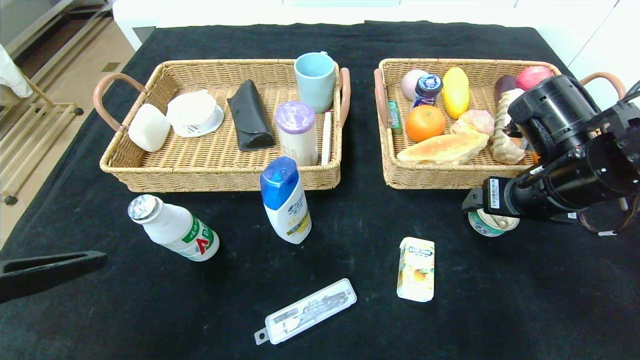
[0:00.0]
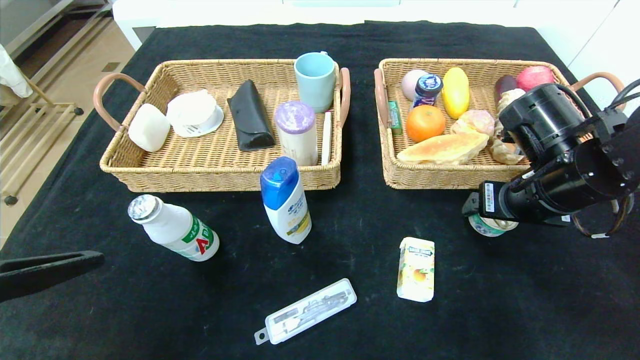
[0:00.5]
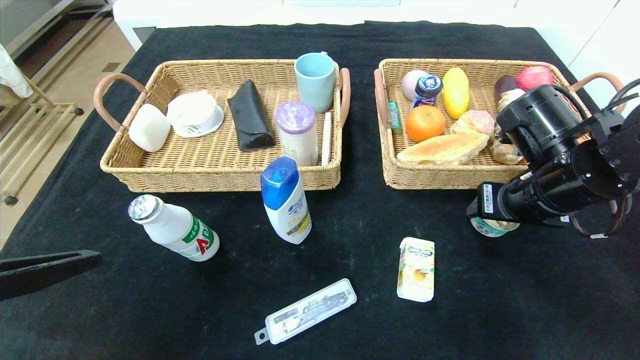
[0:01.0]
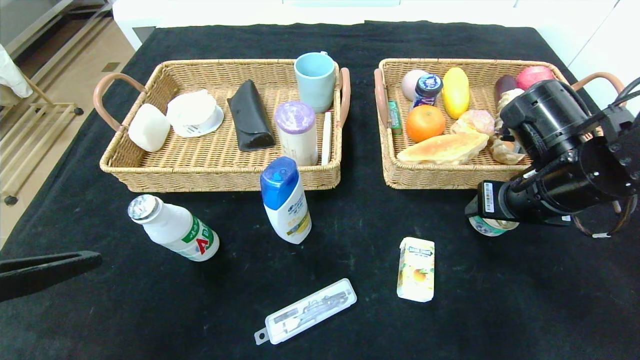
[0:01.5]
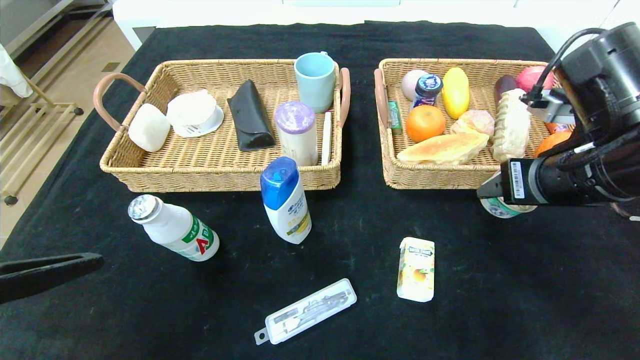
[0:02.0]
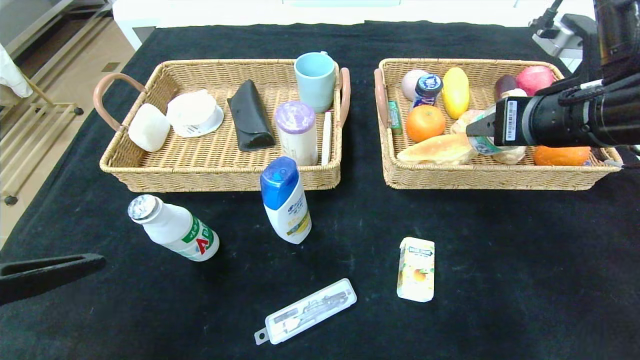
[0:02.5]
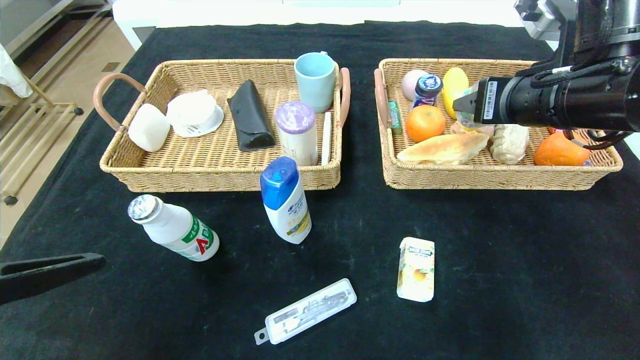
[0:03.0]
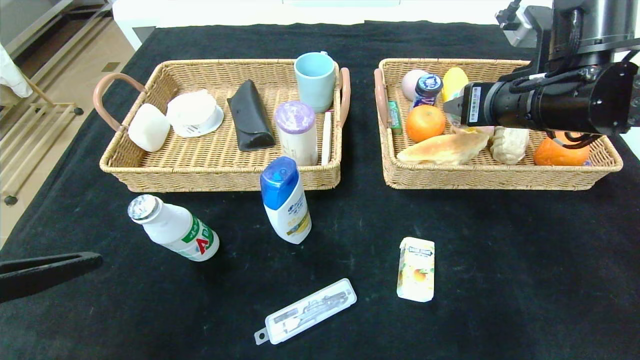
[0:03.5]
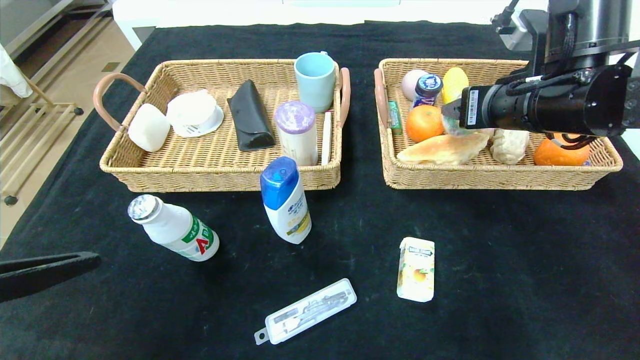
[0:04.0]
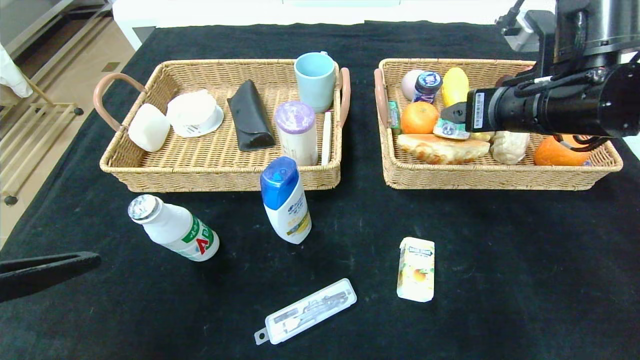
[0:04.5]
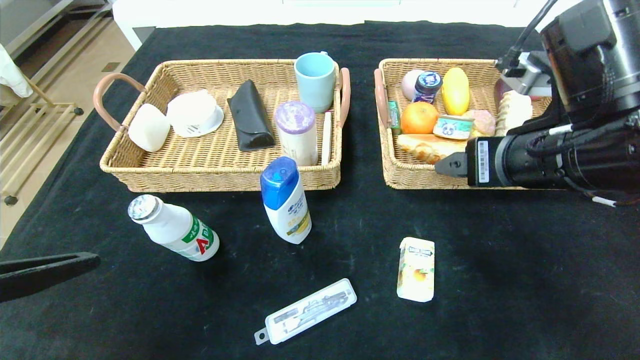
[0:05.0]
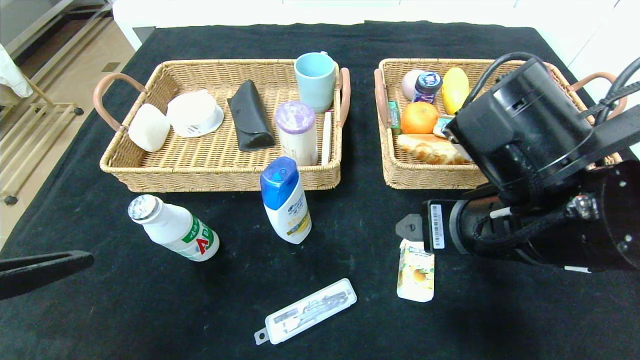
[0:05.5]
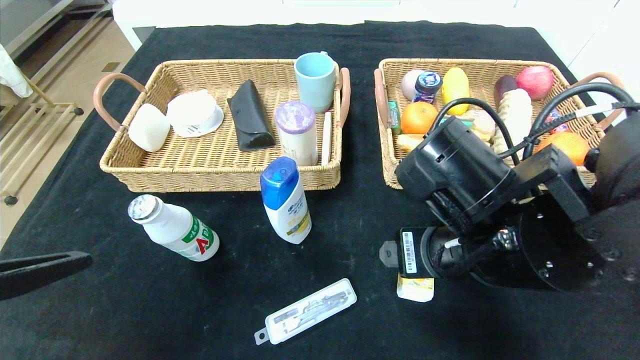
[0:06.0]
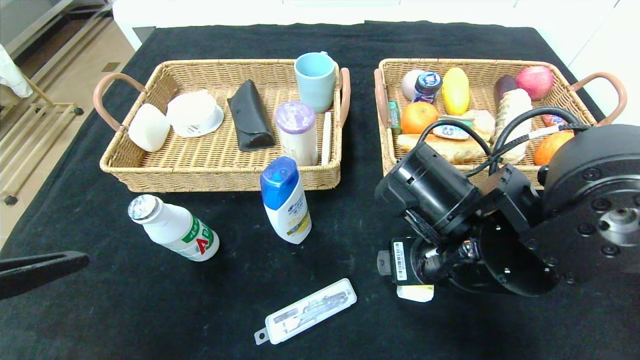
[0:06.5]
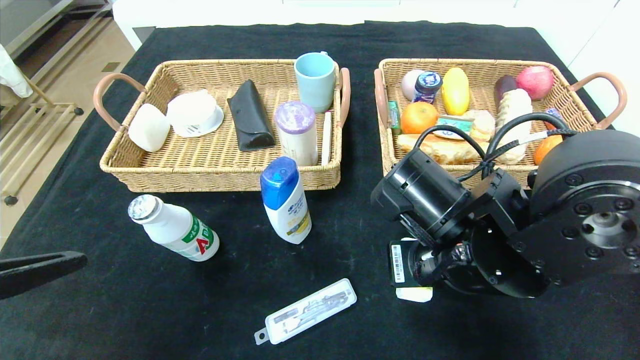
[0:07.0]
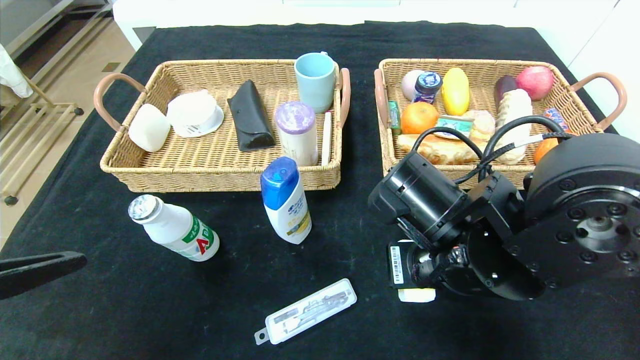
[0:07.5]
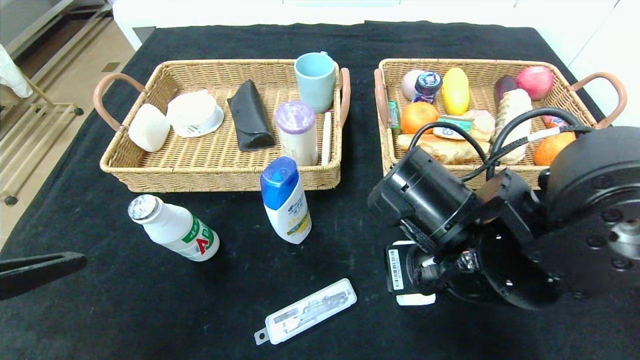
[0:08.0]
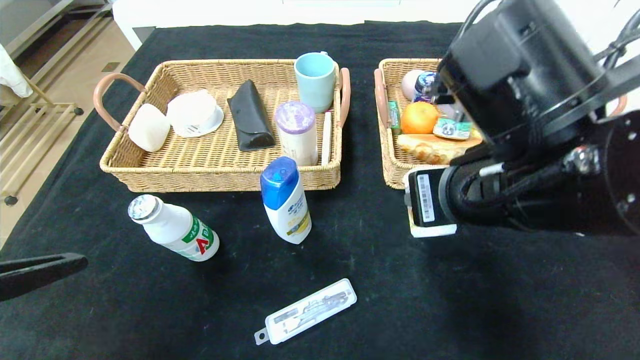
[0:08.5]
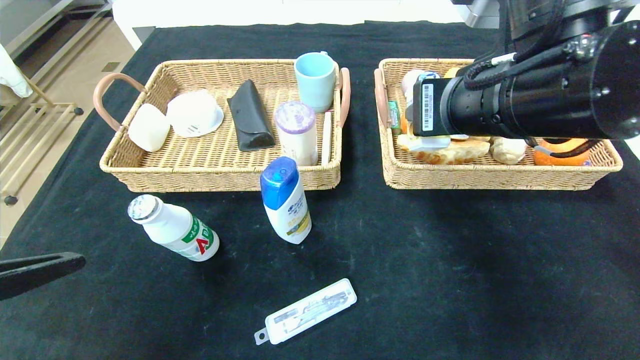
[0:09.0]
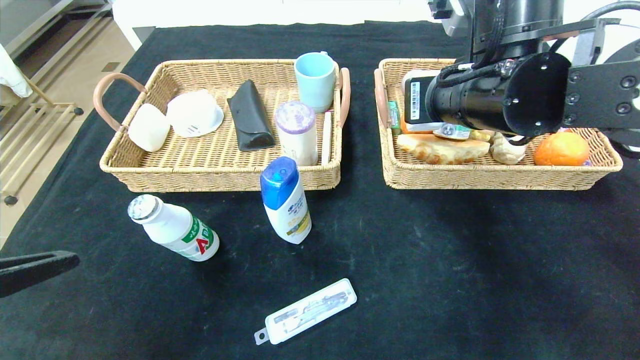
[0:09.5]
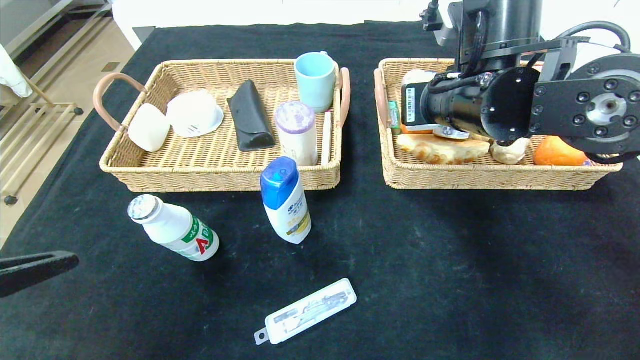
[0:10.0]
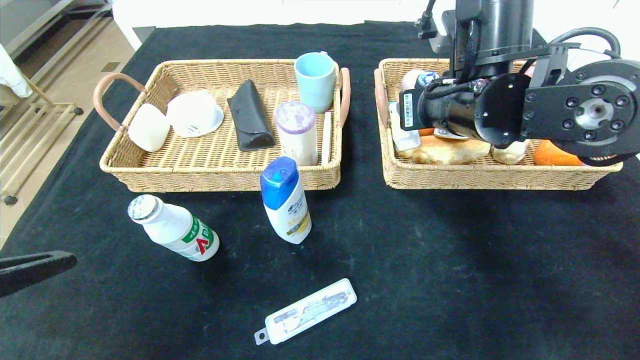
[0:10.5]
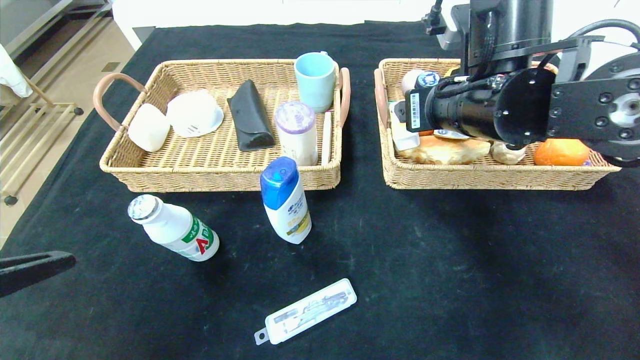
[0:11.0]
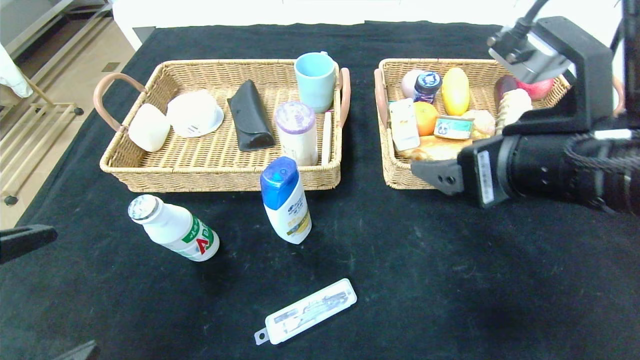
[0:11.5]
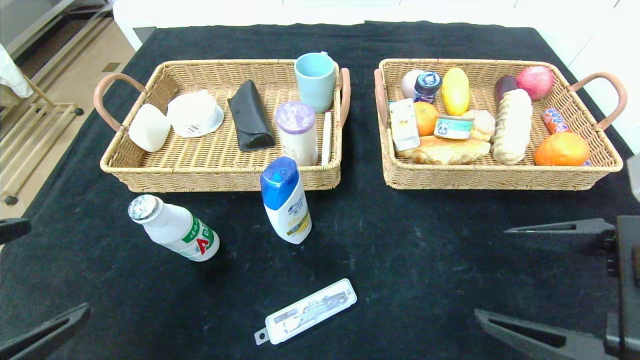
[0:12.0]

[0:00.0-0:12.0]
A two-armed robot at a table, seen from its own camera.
Step, 0:00.0 to 0:04.0: Grasp the can and put it in the right basket.
Step, 0:04.5 to 0:10.5: Grasp the square chewing gum and put it in the right basket.
0:00.0 to 0:02.0: The right gripper changes place by about 5 cm, and closes up.
0:02.0 to 0:04.0: The right gripper moves forward, roughly 5 cm.
0:04.0 to 0:06.0: The right gripper heads backward, to the left and downward, covering some 15 cm, and opens its fingers.
0:06.0 to 0:08.0: The right gripper closes up.
0:08.0 to 0:10.0: The right gripper goes approximately 15 cm forward and upward.
0:10.0 to 0:12.0: The right gripper heads backward and to the right, covering roughly 25 cm, and opens up.

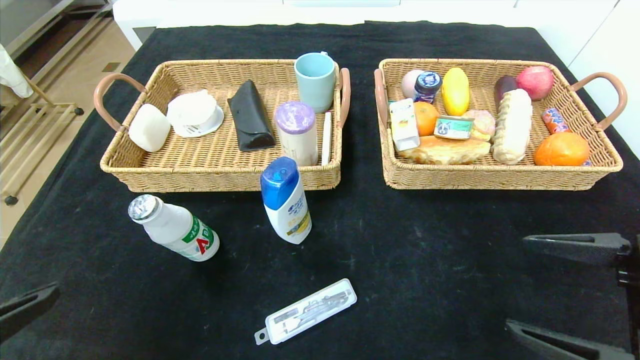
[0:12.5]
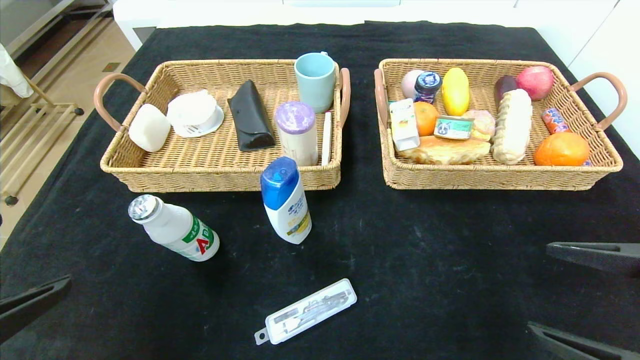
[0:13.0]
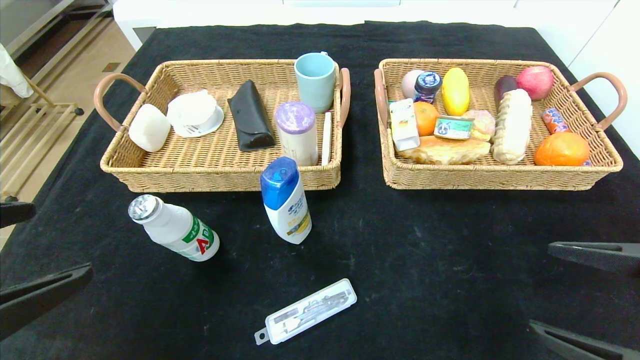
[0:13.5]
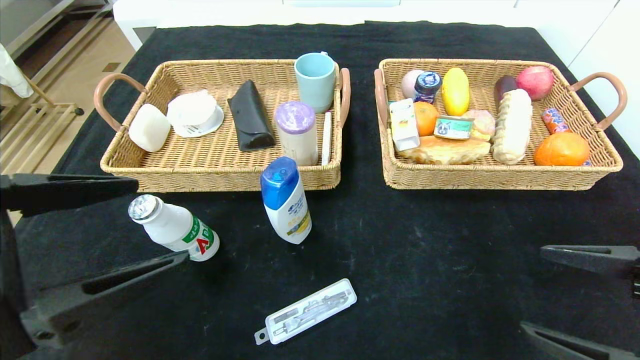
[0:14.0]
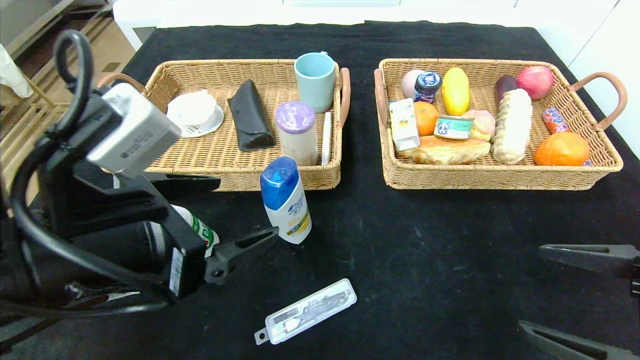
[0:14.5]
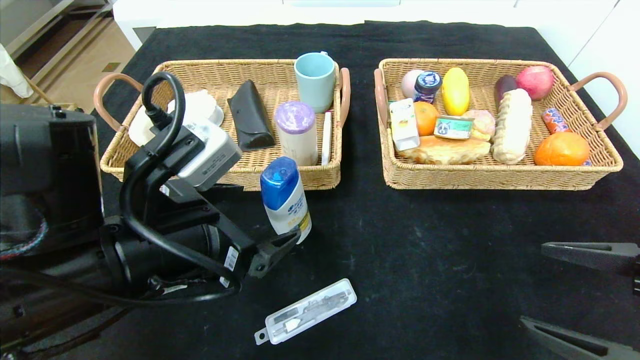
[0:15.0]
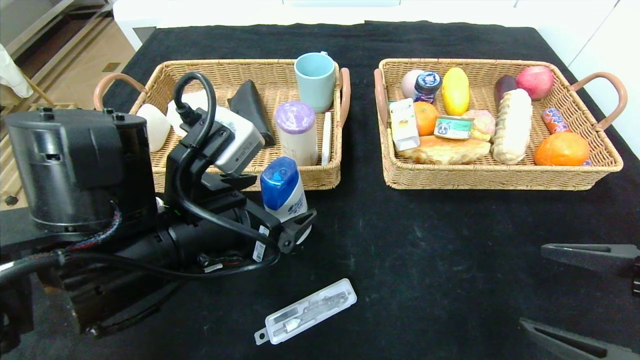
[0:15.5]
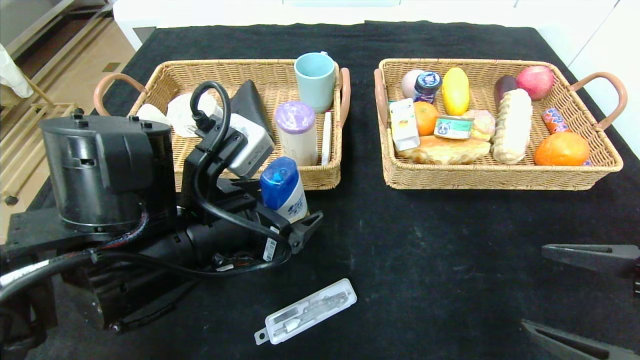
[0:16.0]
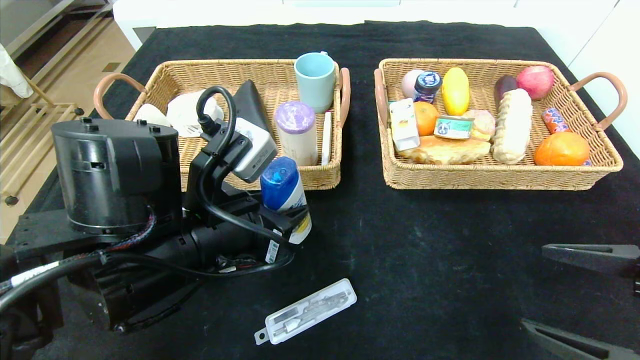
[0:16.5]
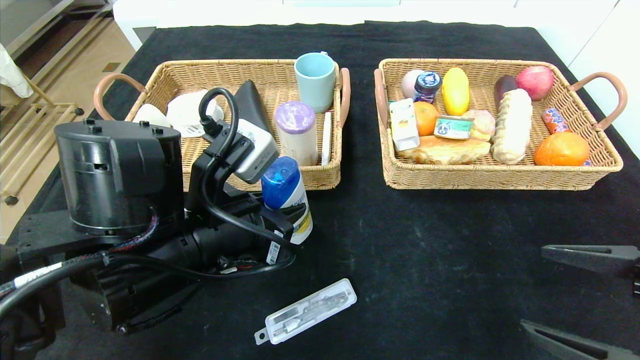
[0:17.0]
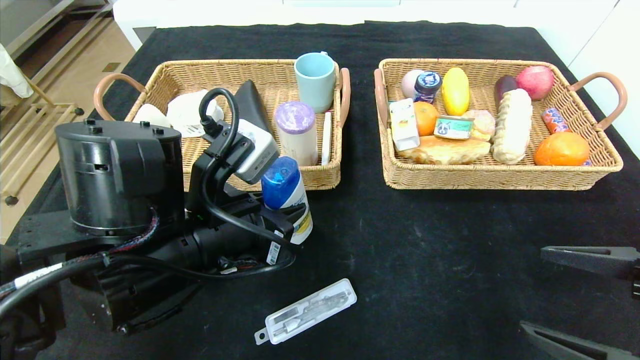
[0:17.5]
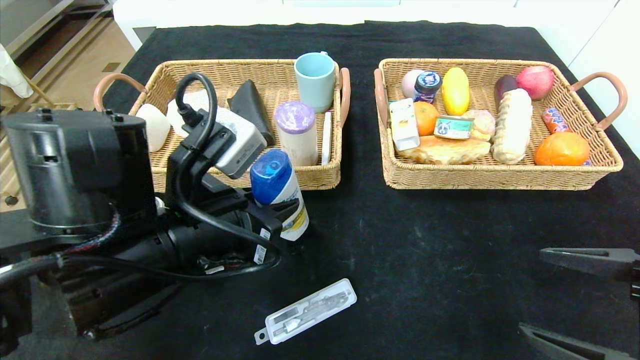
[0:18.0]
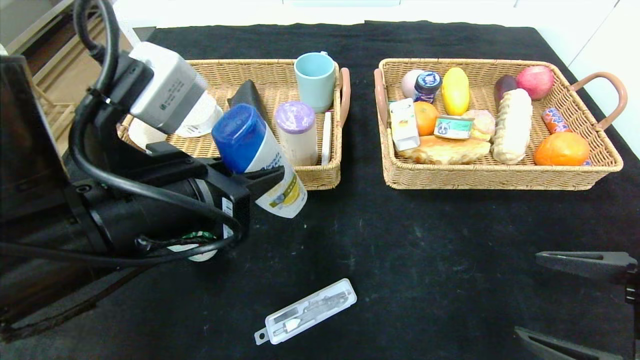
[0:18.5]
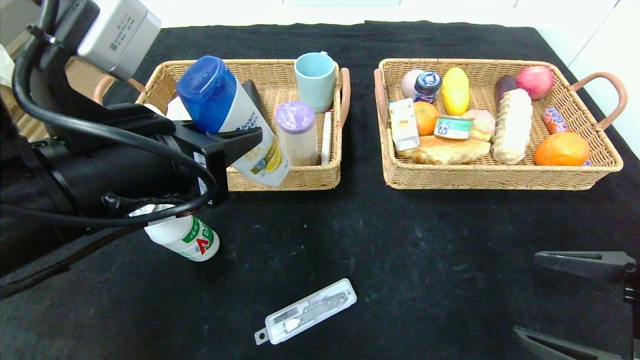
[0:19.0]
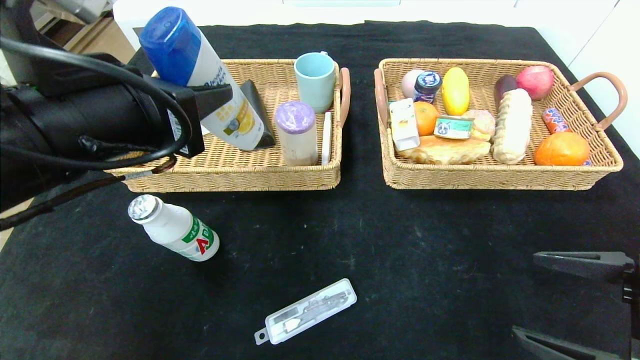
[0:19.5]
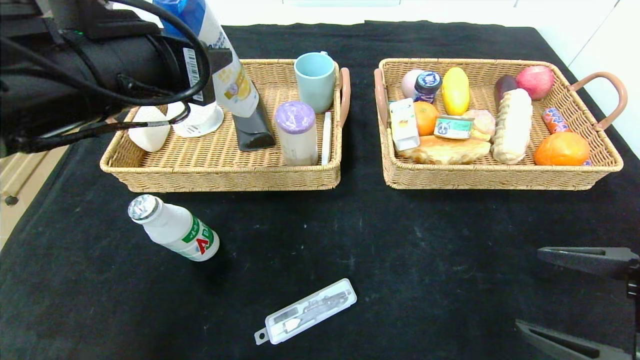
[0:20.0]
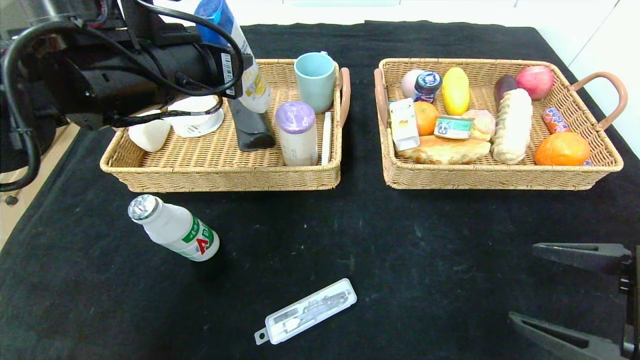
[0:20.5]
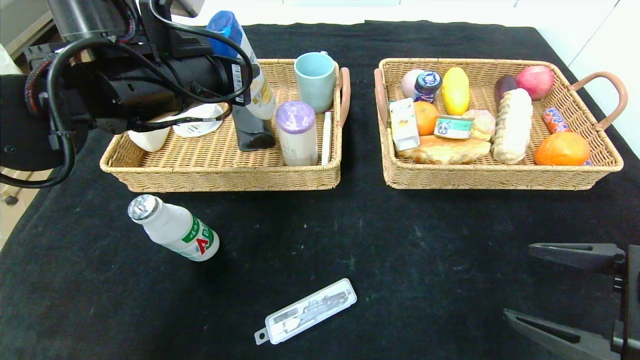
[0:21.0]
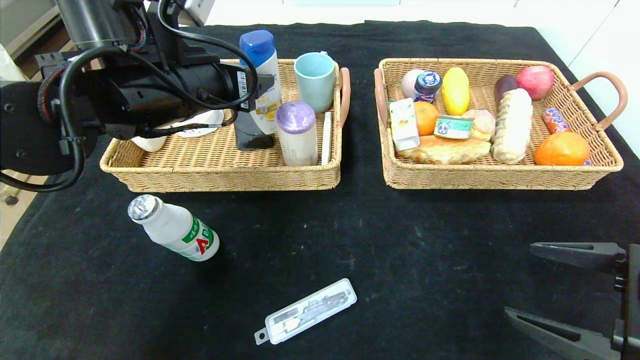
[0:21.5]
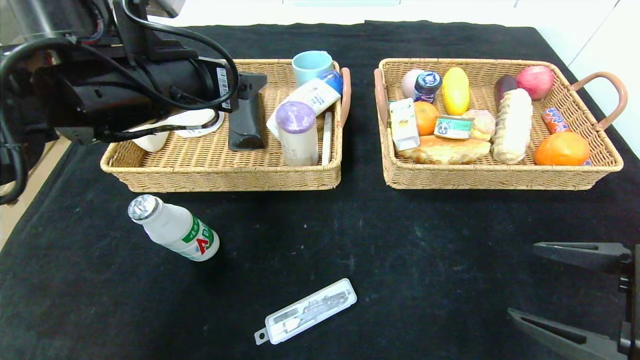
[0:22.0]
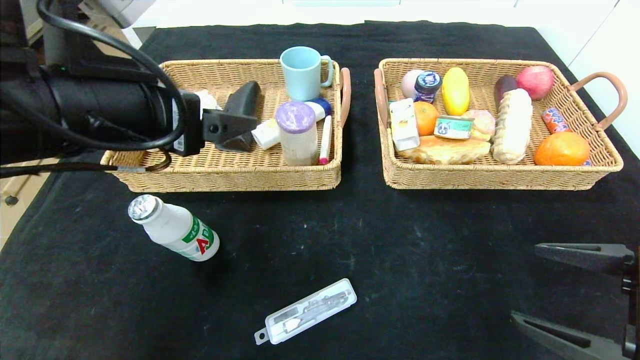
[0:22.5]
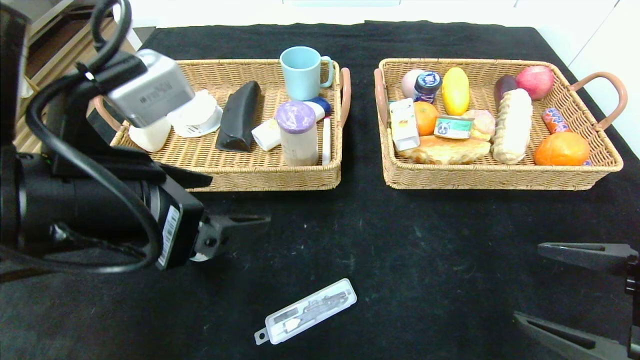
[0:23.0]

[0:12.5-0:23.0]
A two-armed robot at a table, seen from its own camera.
Step, 0:12.5 to 0:21.5: Grasp the shampoo and put it in the left basket.
0:12.5 to 0:14.5: The left gripper goes about 15 cm forward and to the right.
0:14.5 to 0:16.5: The left gripper shifts by roughly 10 cm, and closes up.
0:16.5 to 0:19.0: The left gripper shifts roughly 5 cm upward.
0:19.0 to 0:21.0: The left gripper is displaced forward by about 15 cm.
0:21.0 to 0:23.0: The left gripper is displaced backward by about 15 cm, and opens.
